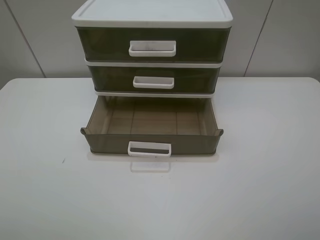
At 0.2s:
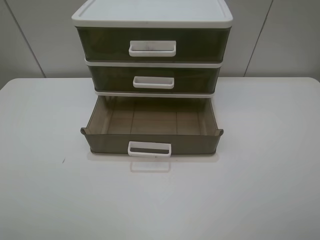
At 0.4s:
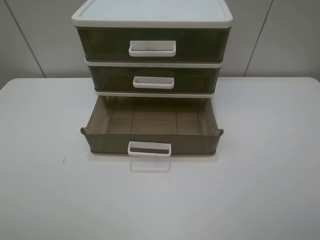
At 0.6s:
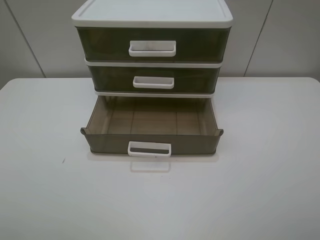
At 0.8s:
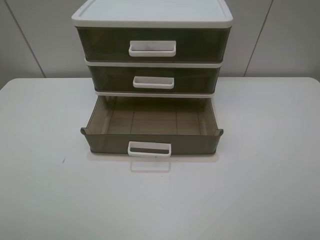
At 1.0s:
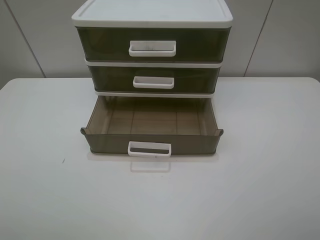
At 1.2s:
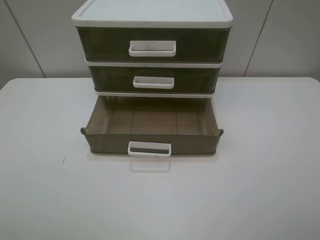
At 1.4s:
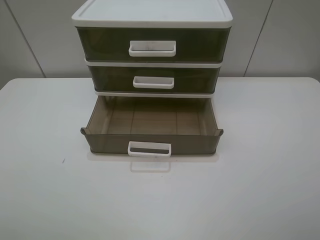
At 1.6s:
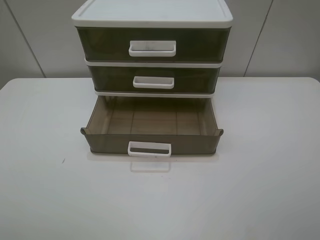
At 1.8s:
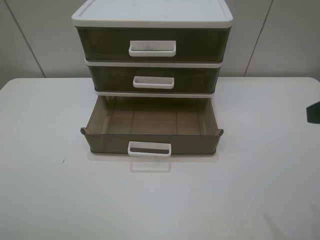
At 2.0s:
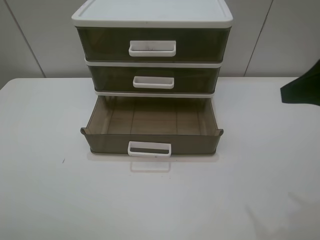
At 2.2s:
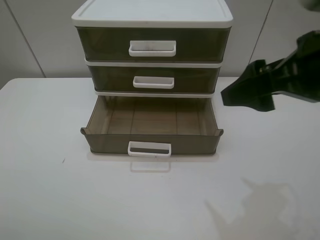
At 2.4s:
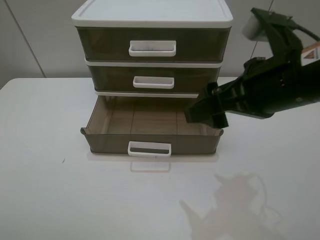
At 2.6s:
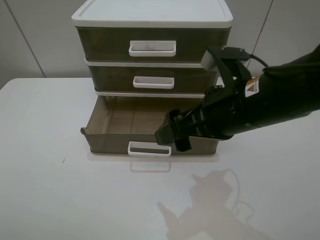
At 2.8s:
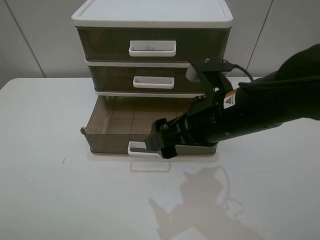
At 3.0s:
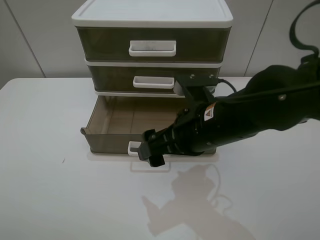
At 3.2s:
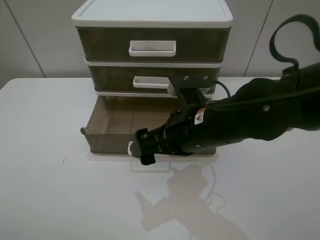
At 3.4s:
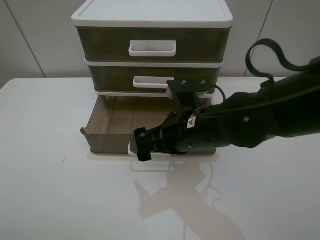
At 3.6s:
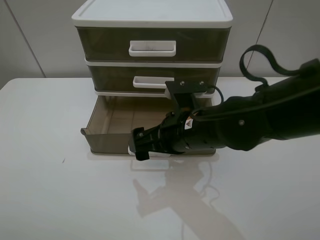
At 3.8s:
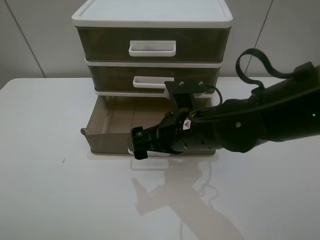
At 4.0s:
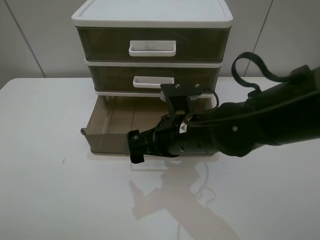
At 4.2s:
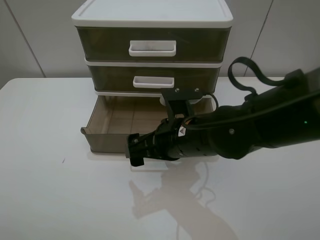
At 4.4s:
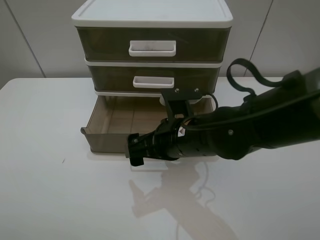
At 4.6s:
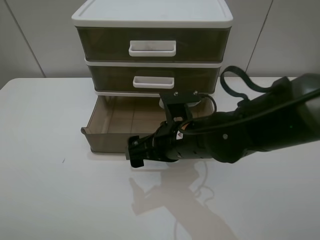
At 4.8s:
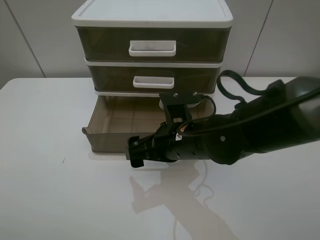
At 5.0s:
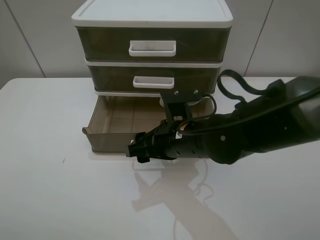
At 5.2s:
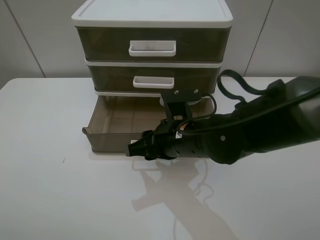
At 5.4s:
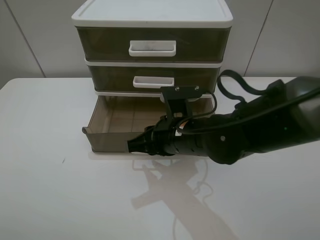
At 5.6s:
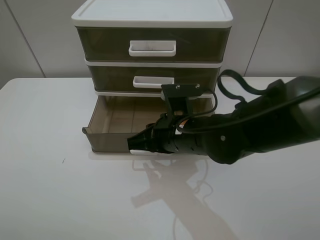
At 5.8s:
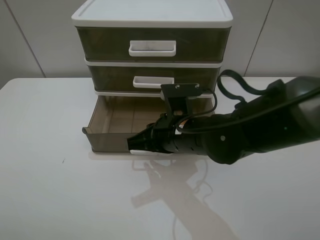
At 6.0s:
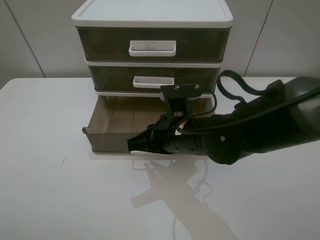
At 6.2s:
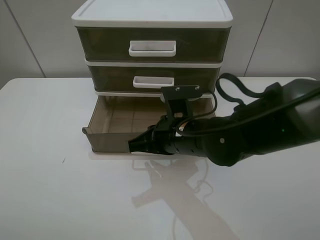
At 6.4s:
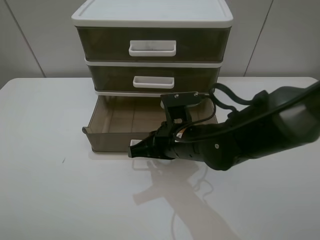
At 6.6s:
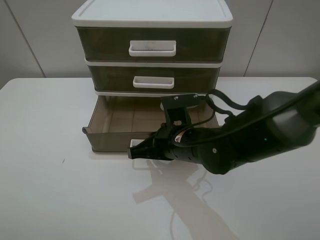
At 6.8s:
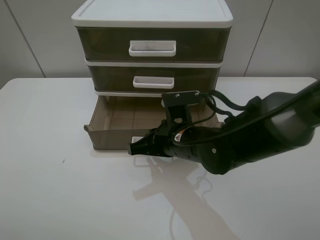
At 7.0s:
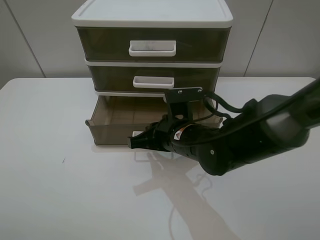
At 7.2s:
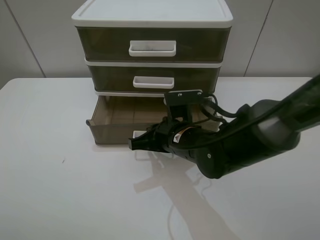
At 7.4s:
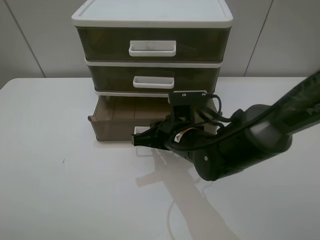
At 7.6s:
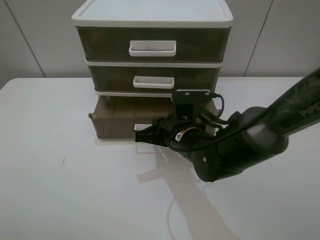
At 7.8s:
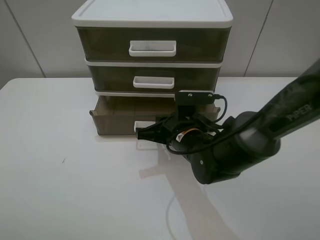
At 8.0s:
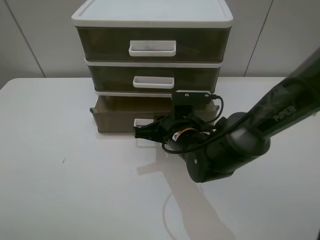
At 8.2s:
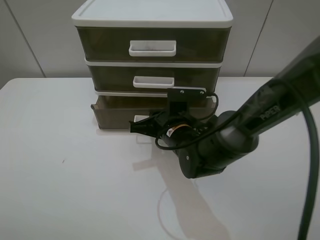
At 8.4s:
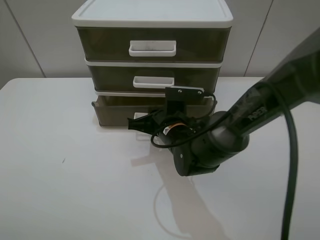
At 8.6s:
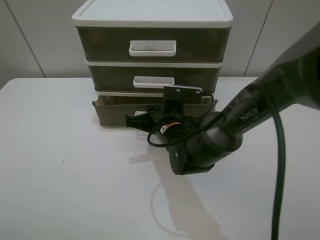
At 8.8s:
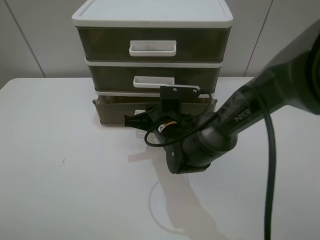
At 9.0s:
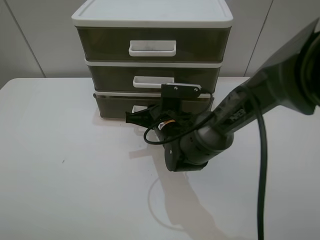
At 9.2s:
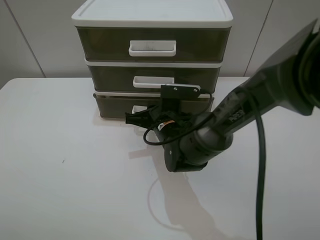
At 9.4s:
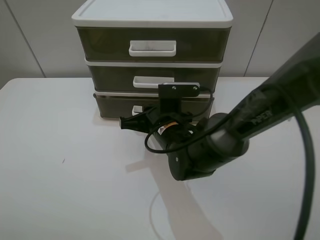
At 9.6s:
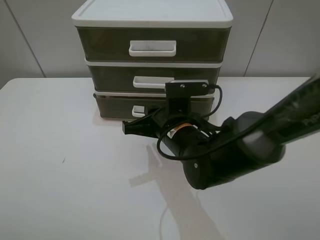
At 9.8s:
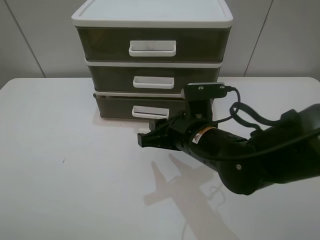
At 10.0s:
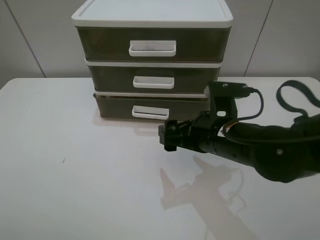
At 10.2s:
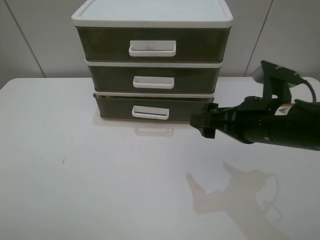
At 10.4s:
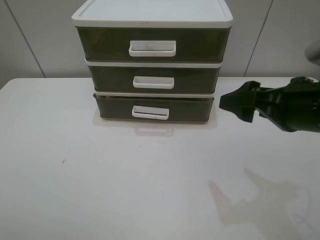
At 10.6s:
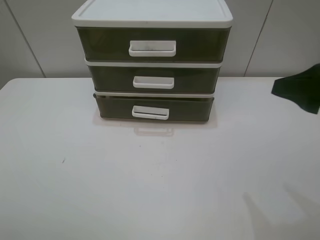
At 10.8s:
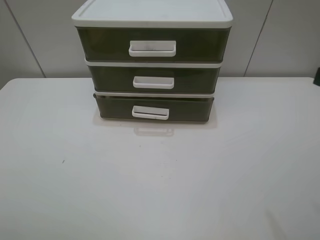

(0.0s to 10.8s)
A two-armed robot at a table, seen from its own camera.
Task of the whole recording: close the bottom drawer.
Step, 0.0s - 5.4s: Use the right gripper to contact the bottom layer of the storage cabinet.
Step, 5.6s - 9.0s: Push the bottom drawer closed.
1.6s - 3.0s: The right gripper travels to the left, forward and downward by some 25 cm.
3.0s - 4.6s: The right gripper shifts some 5 cm downward.
4.6s - 6.2s: The right gripper closes up.
6.2s - 7.8s: The right gripper moves some 5 cm.
7.8s - 9.2s: The right gripper moves roughly 5 cm.
9.2s - 10.8s: The right gripper goes about 40 cm to the right, upward and backward, and opens its fingers.

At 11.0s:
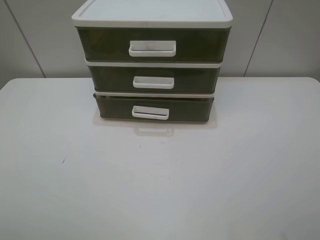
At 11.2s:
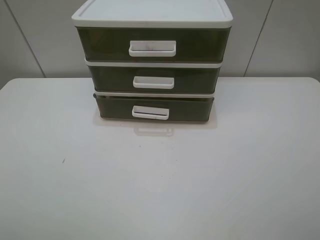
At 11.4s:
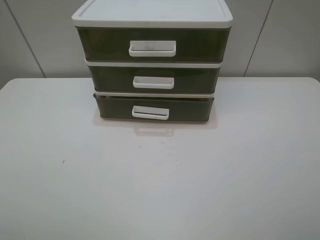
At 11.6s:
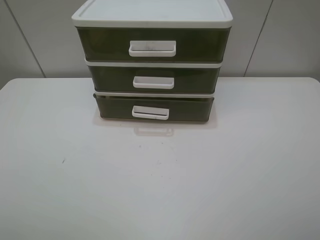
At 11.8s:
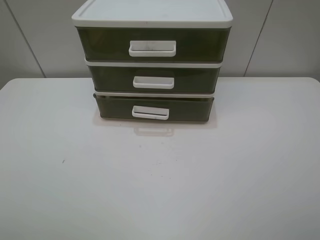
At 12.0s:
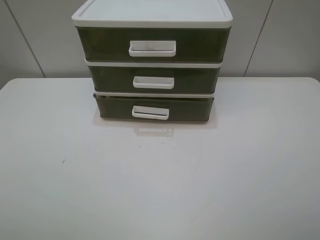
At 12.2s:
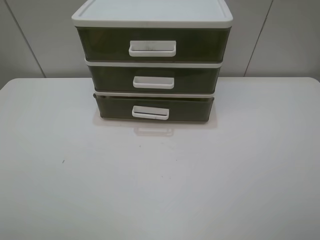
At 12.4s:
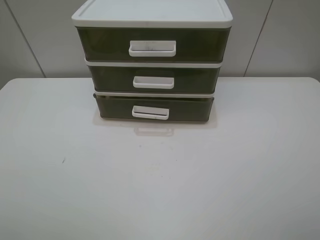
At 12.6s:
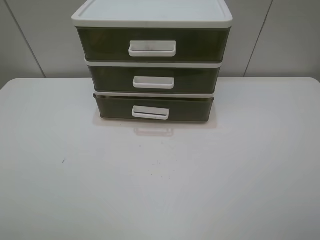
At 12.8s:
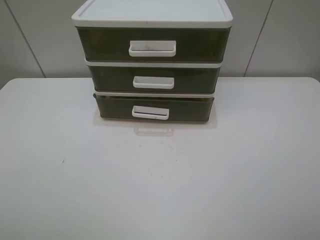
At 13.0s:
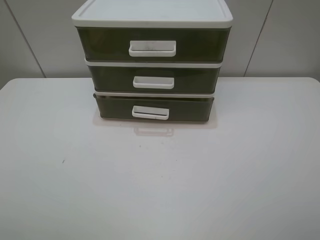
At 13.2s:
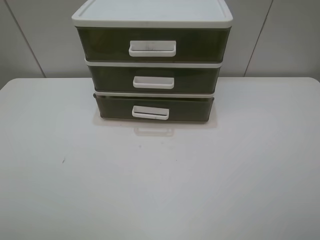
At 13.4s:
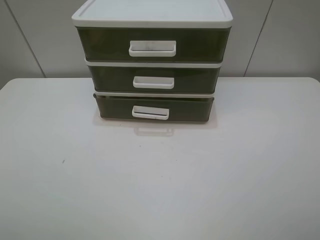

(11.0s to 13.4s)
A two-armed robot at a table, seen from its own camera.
Task of the whole recording: close the bottom drawer.
12.2s - 13.4s: Both grippers stay put.
